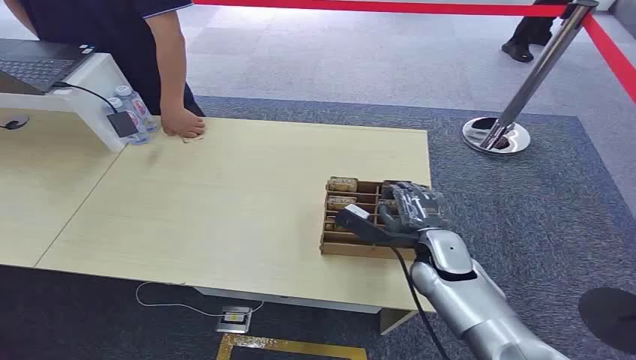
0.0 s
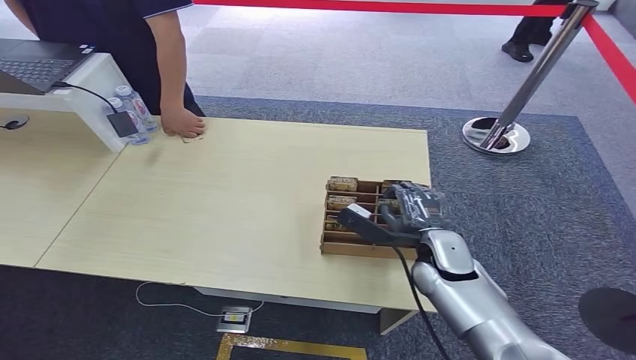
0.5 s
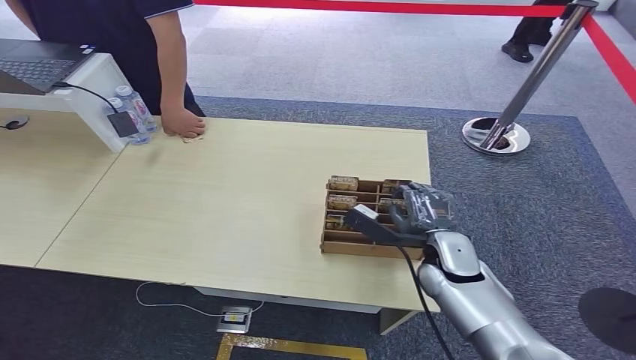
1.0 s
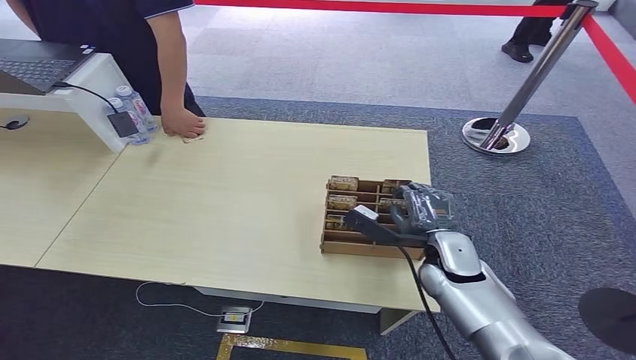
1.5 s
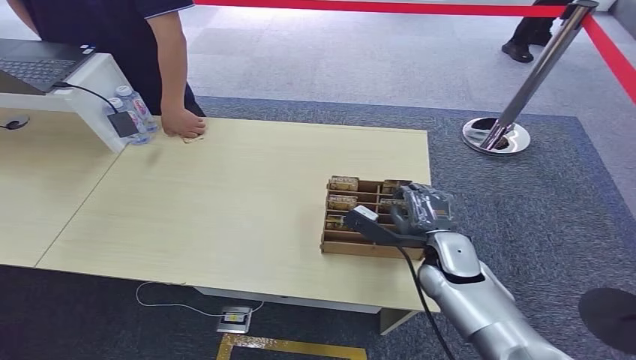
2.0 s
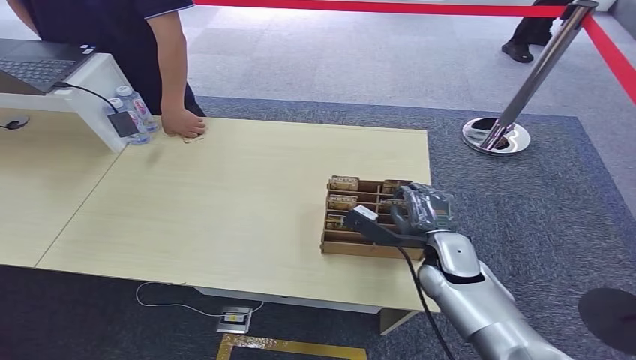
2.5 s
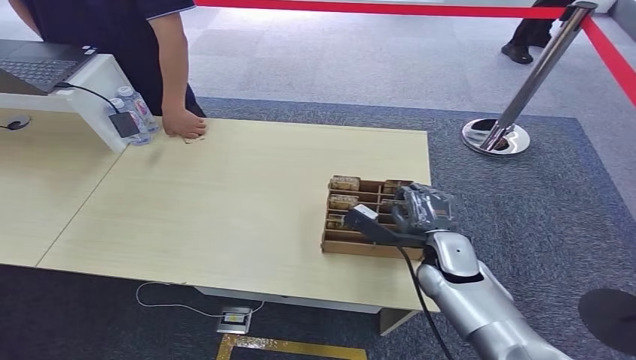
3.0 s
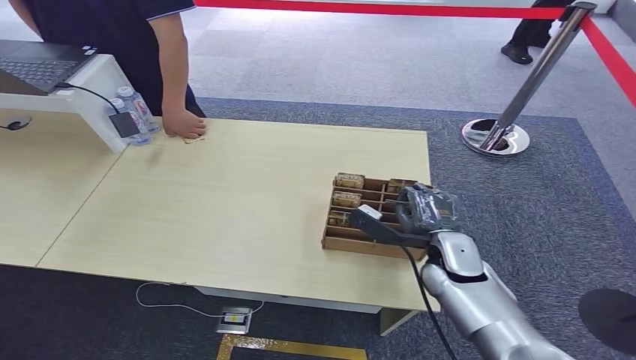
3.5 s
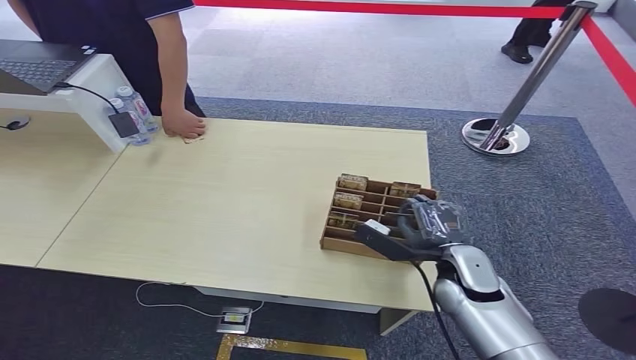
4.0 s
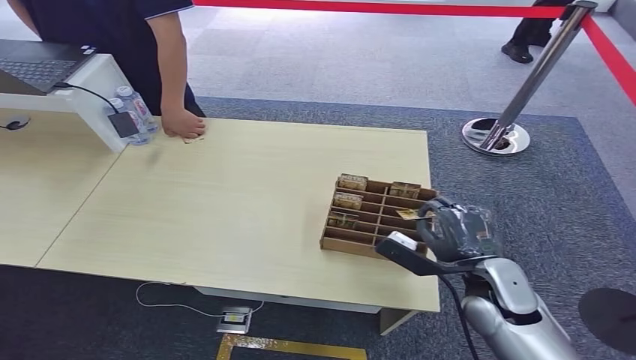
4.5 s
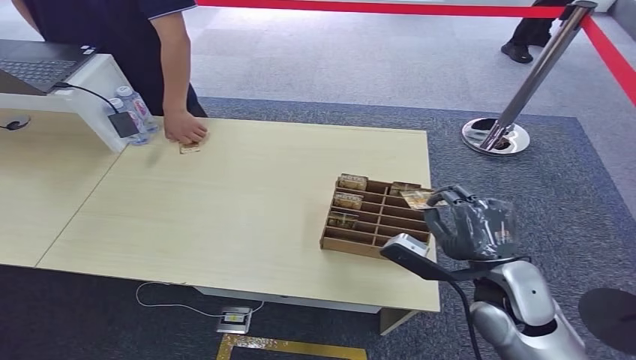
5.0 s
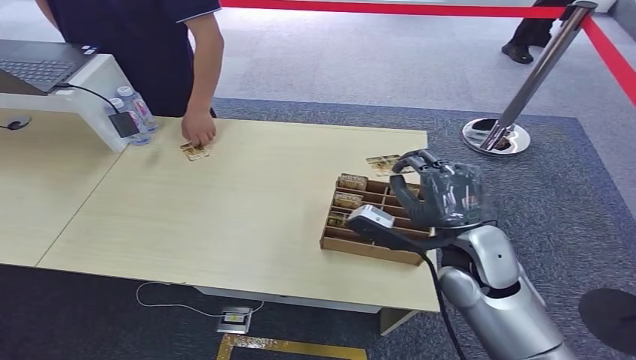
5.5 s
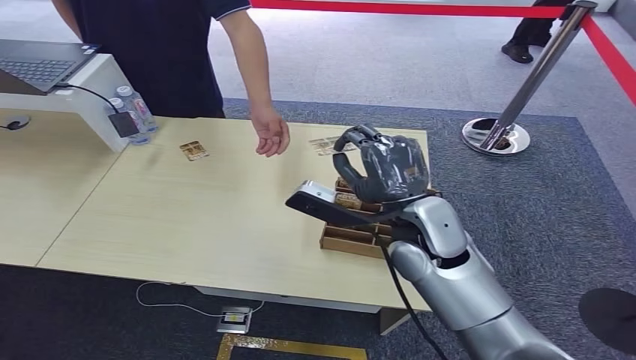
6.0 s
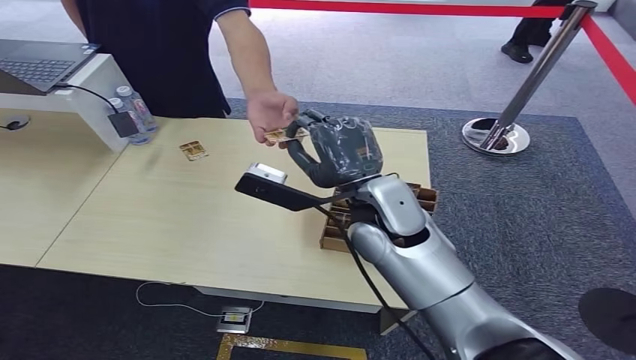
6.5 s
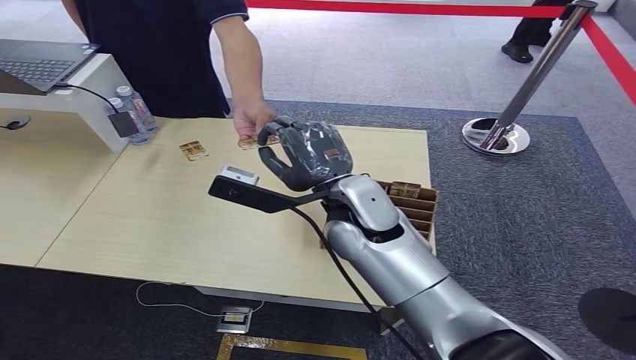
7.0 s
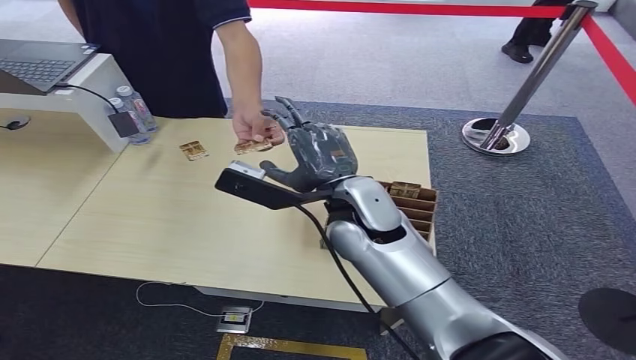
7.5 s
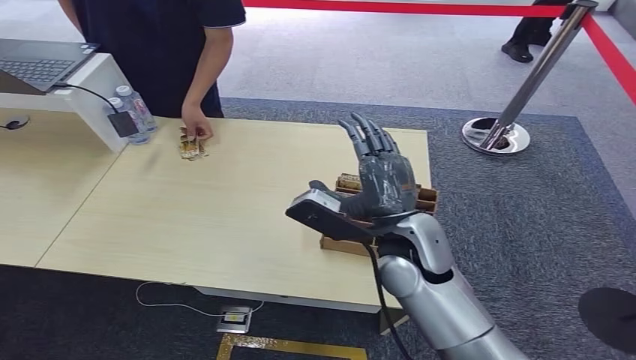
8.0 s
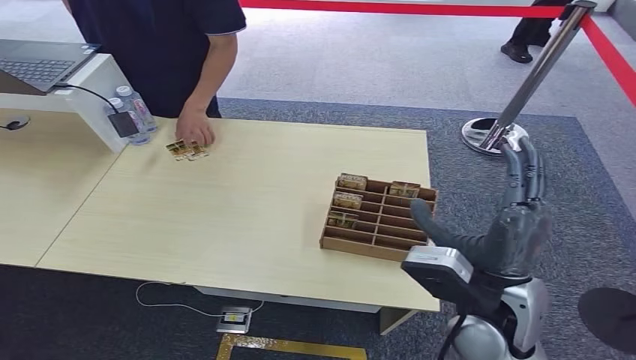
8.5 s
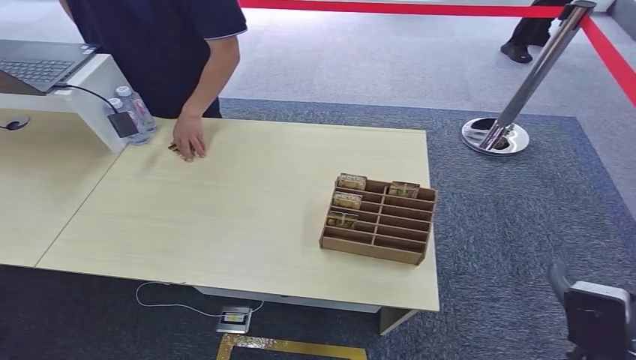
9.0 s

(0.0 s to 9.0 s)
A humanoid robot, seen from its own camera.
Task of the whole recording: Pick up the card and hand it over to the target person.
Step, 0.0 s - 5.0 s: Pick up the key card from the card box.
Step, 5.5 s - 9.0 s: Hand the key card to the target.
2.0 s - 4.5 s: The right hand is displaced backward and to the right by some 10 cm.
7.0 s - 9.0 s: The right hand is displaced to the right, backward and downward by roughly 50 cm.
